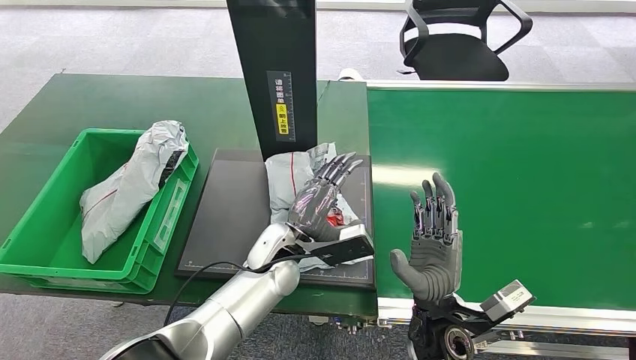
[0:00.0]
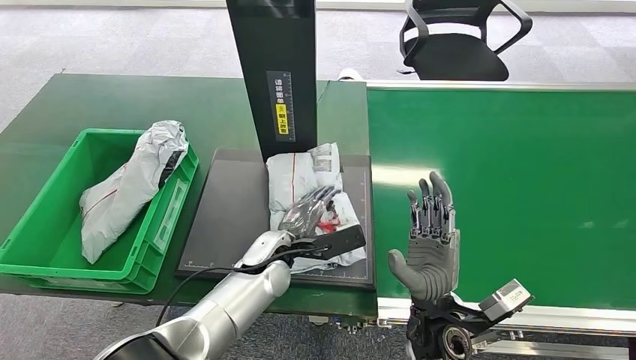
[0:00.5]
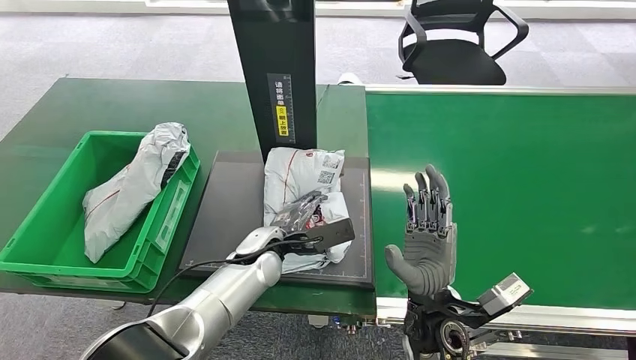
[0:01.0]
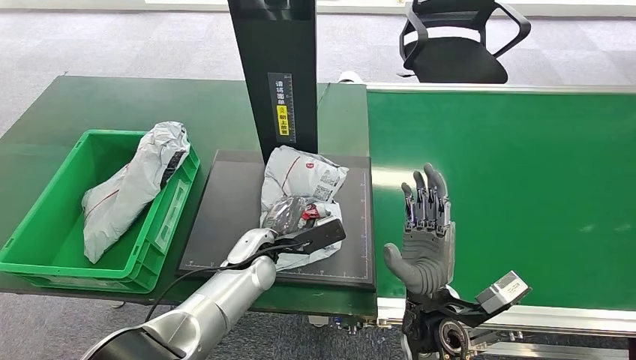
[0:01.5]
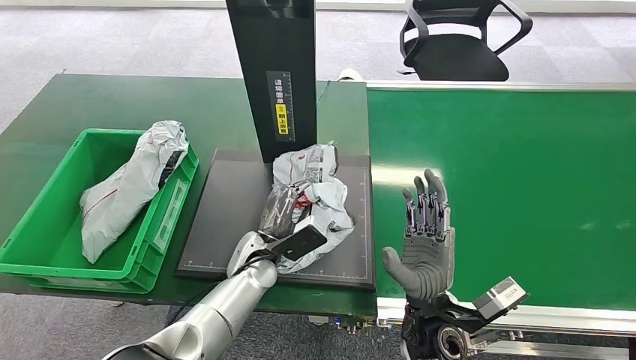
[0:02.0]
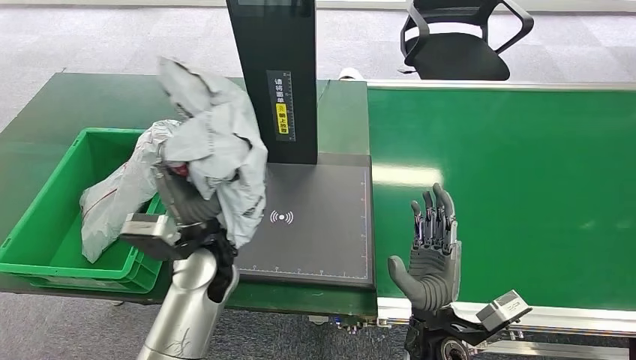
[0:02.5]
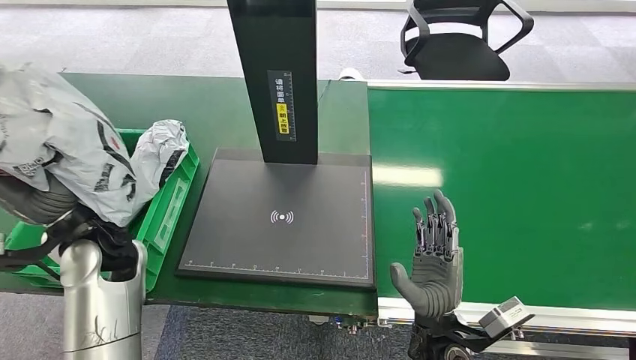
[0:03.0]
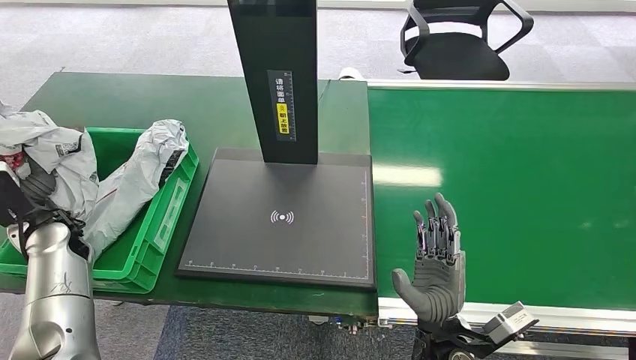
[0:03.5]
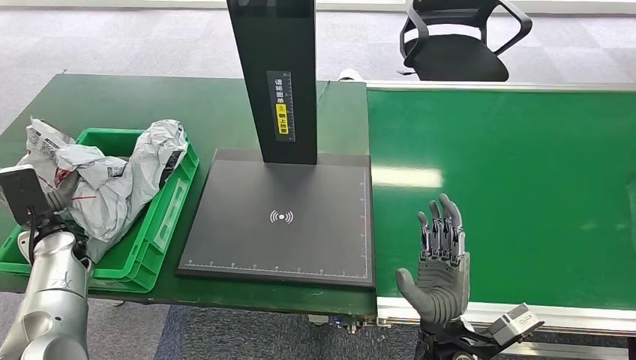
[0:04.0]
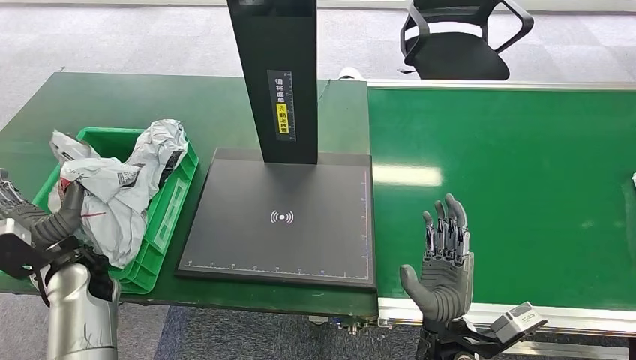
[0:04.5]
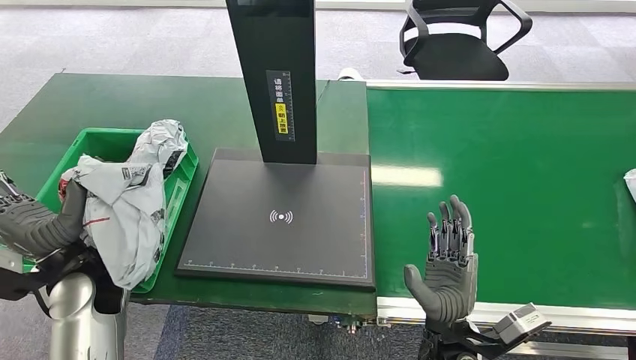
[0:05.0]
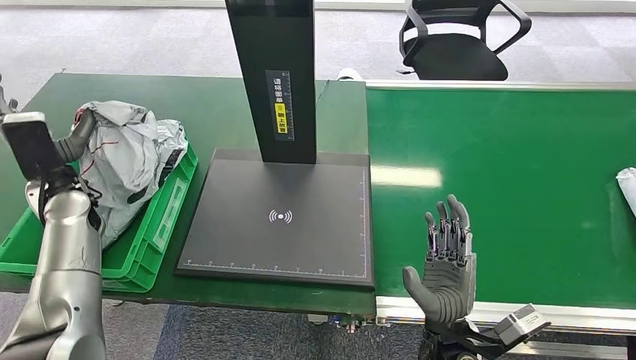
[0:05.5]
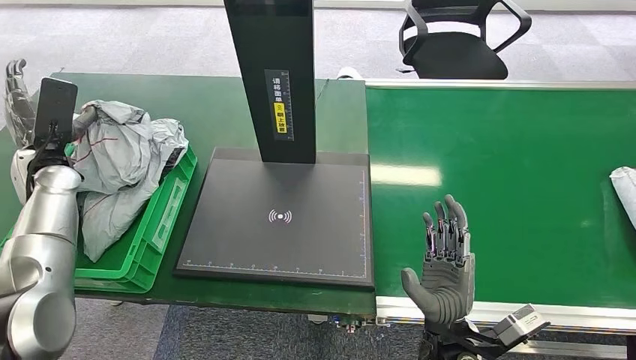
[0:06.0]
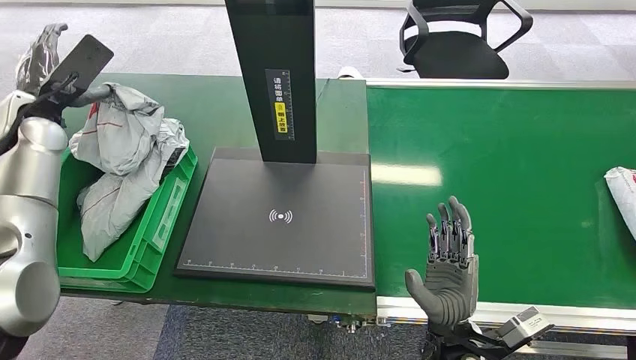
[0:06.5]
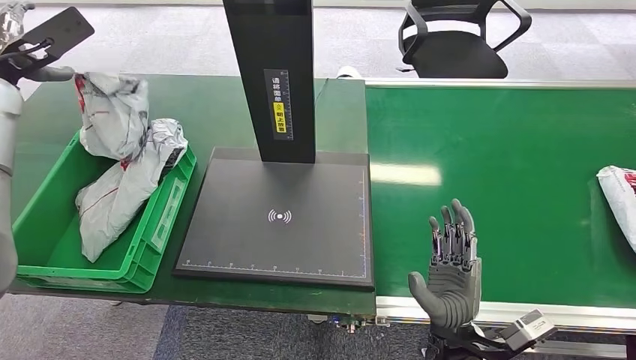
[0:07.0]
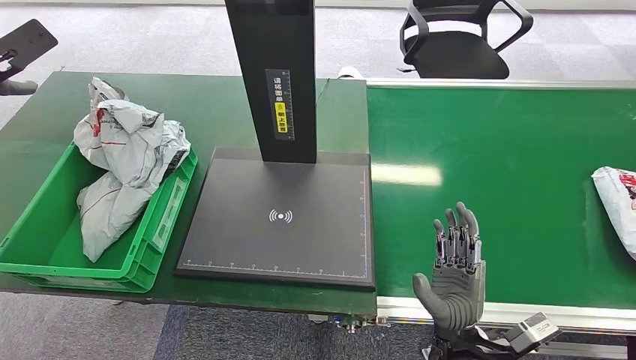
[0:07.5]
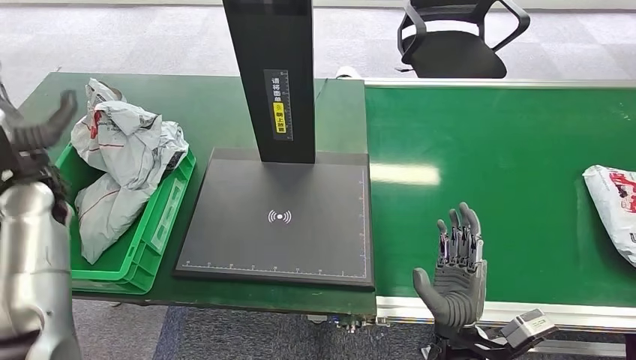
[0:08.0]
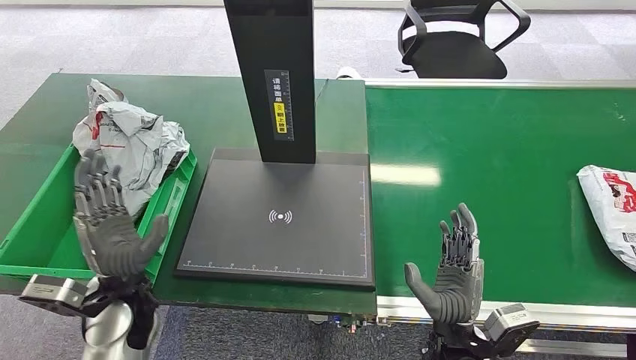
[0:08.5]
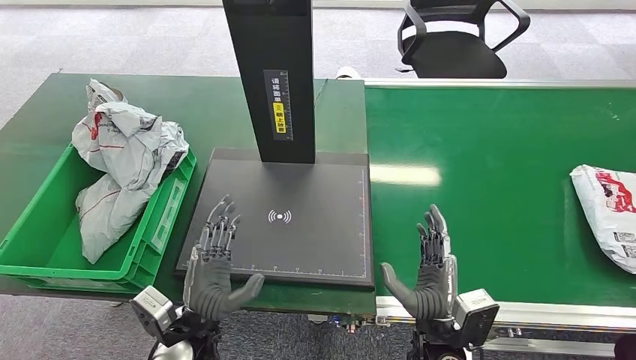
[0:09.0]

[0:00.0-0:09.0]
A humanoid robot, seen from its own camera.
Step, 0:00.0 to 0:02.5: Pick up the package from the inbound machine.
Step, 0:03.0 to 0:09.0: Place the package into the parcel locker.
0:00.0 to 0:02.0: The left hand moves some 5 cm.
0:07.0 to 0:09.0: The left hand is displaced to the right, downward and backward by some 50 cm.
